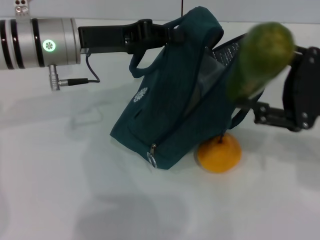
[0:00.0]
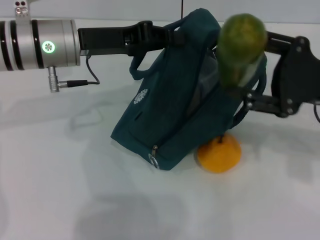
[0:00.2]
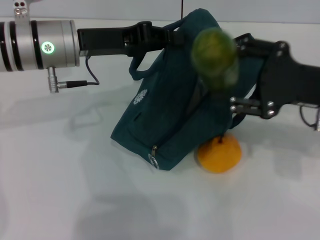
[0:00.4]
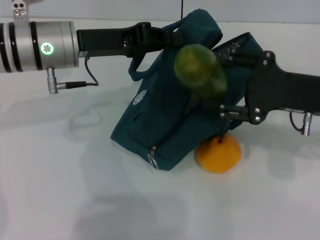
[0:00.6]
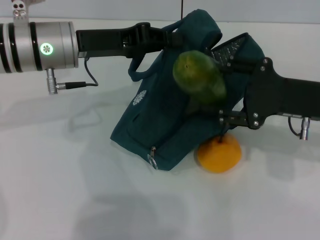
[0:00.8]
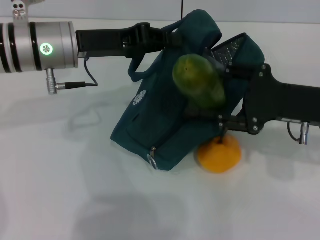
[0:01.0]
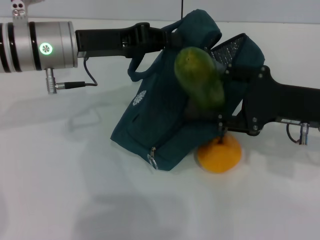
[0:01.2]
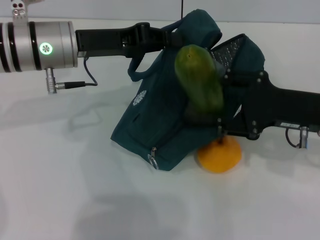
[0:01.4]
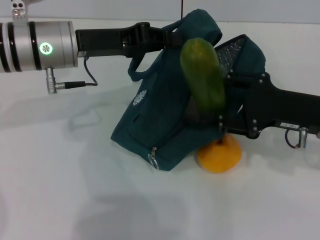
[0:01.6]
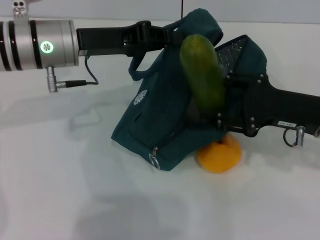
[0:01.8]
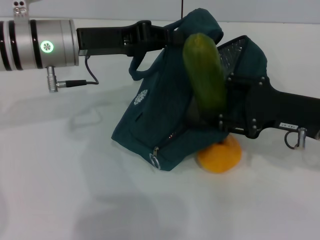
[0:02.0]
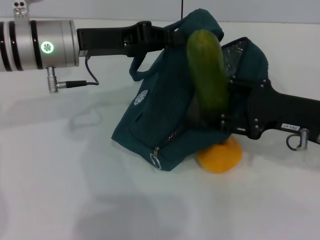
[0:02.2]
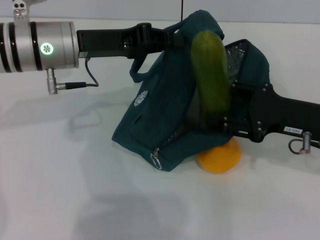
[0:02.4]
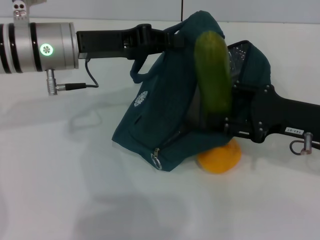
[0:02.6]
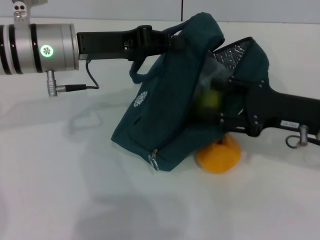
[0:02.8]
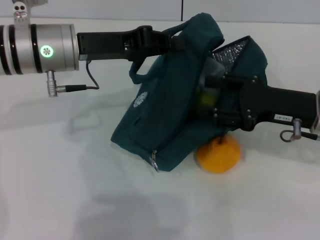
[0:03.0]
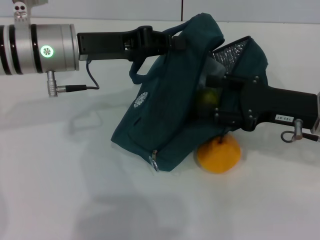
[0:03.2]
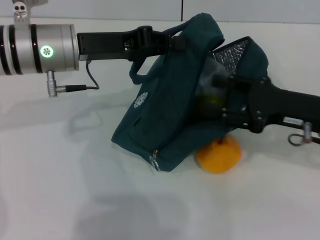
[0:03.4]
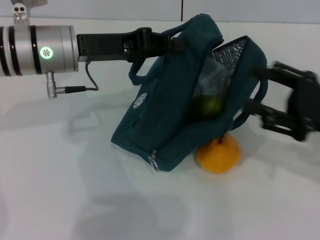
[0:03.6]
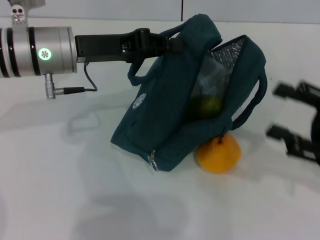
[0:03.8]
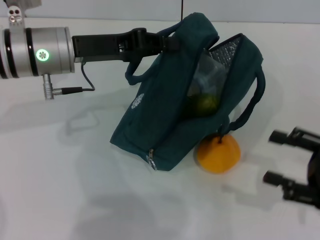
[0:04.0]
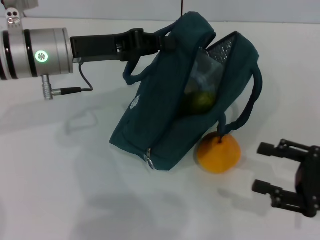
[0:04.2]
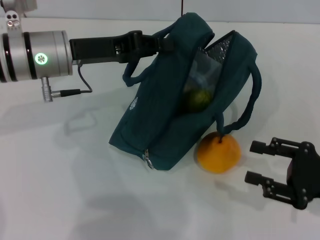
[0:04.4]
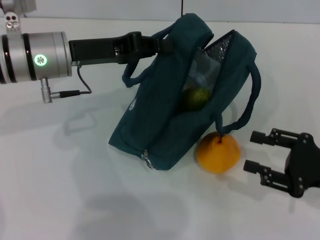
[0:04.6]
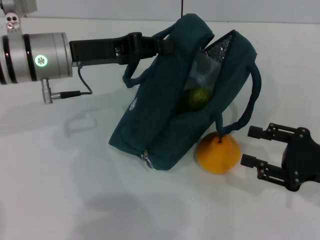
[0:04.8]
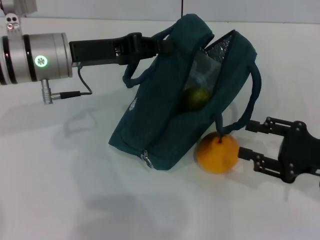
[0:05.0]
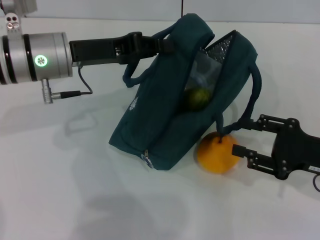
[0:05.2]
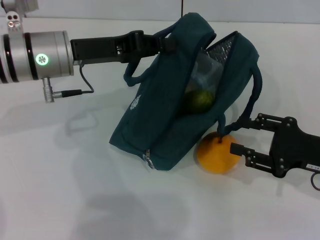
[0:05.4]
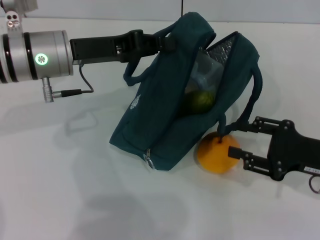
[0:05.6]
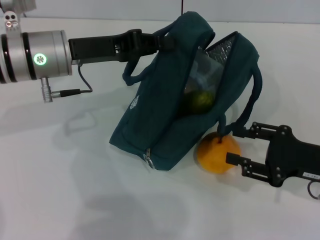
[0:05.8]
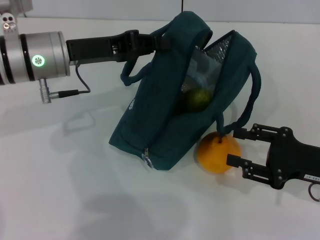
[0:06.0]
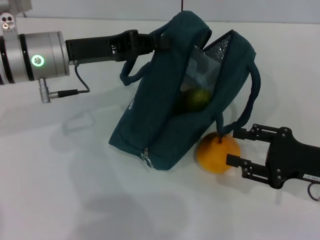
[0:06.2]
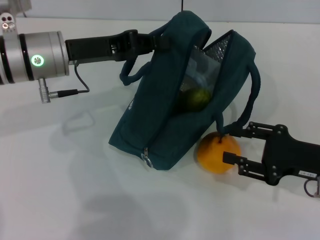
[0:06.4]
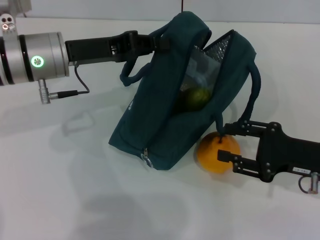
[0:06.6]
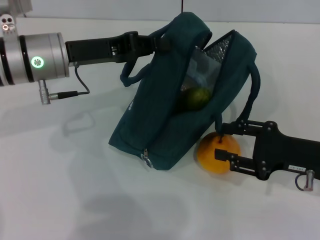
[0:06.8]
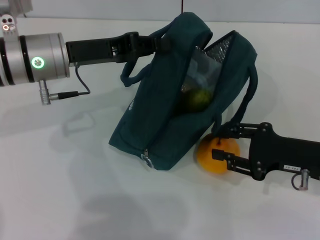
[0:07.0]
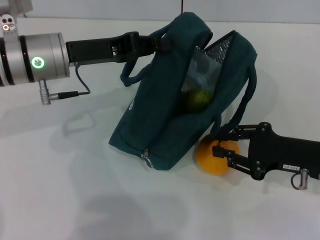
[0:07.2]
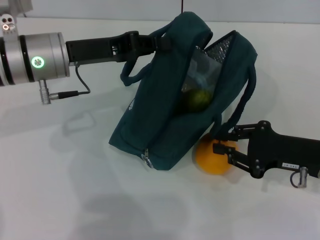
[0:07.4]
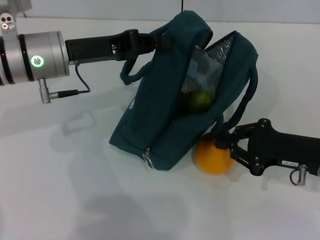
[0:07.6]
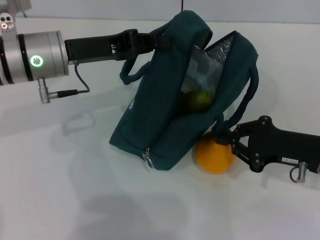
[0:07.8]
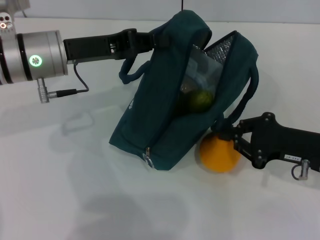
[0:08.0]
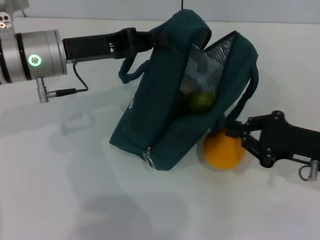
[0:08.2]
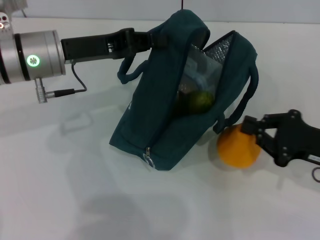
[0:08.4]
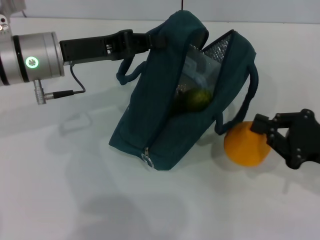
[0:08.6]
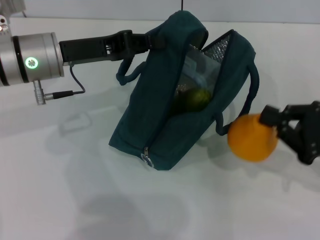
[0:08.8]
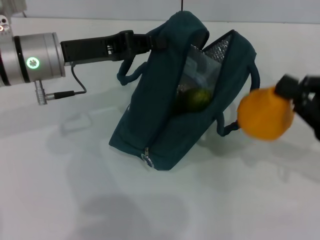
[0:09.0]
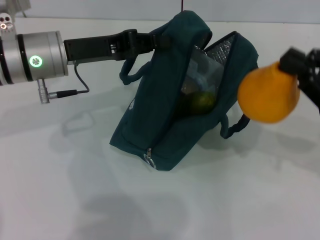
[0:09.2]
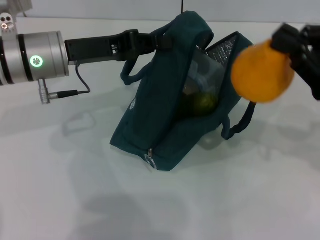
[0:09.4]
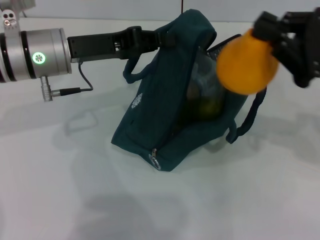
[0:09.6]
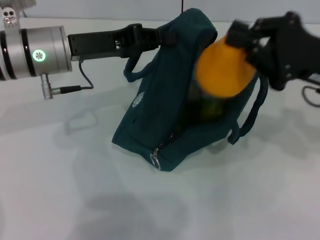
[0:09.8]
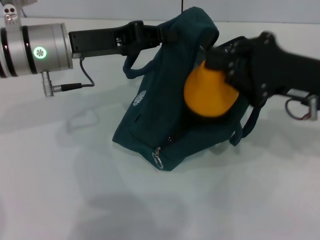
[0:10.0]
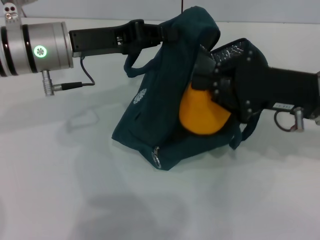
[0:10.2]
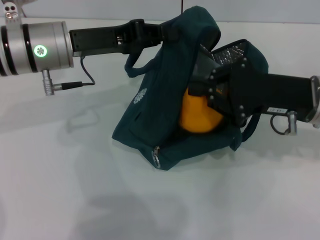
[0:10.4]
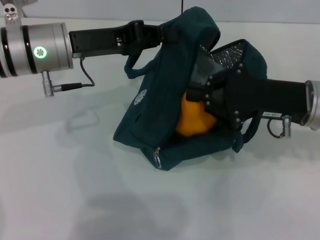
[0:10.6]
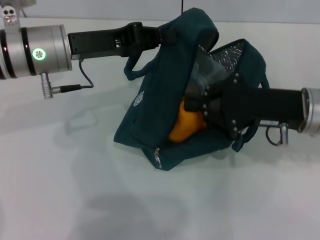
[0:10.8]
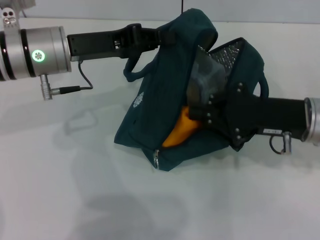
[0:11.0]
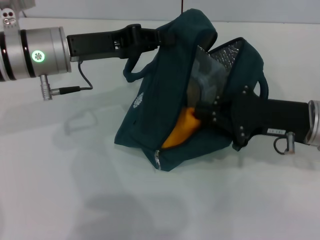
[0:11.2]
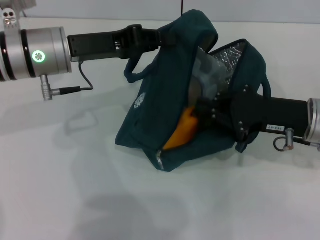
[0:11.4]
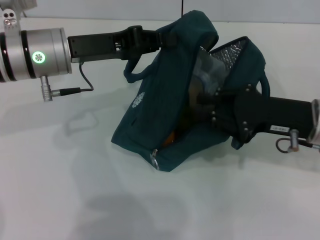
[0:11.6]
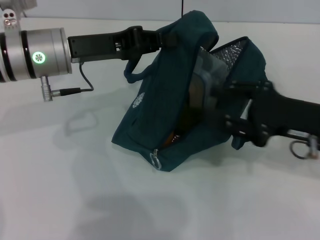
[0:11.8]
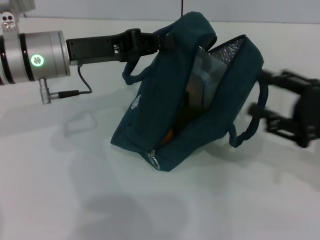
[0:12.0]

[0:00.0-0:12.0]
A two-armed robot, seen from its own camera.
Step, 0:00.0 to 0:03.2: Put the cucumber into the lunch bag with your right hand.
Step, 0:03.4 to 0:07.6: Grab the pear with your right hand.
0:00.0 to 0:01.6: The right gripper ends up roughly 5 cm from where it was.
0:01.6 to 0:03.0: The grippers make only small movements.
0:03.0 to 0:04.4: The right gripper heads backward and to the right, covering about 10 cm.
0:04.4 to 0:06.0: The grippers stay close to where they were, moving slightly.
0:06.0 to 0:07.6: The right gripper closes up.
0:07.6 to 0:09.0: The right gripper travels upward by some 5 cm.
0:09.0 to 0:10.4: The right gripper heads to the left and forward, covering roughly 10 cm.
0:10.4 to 0:12.0: The right gripper moves to the right and backward, approximately 10 cm, and opens its fingers.

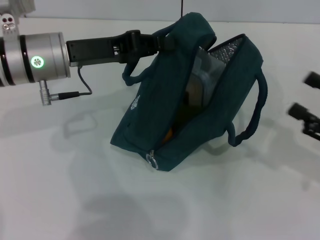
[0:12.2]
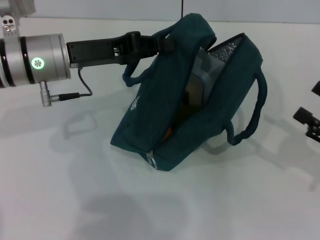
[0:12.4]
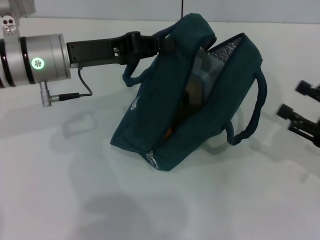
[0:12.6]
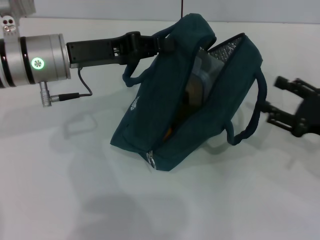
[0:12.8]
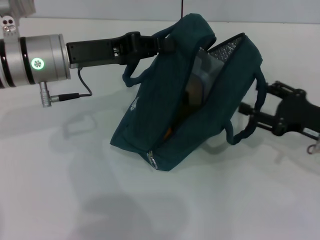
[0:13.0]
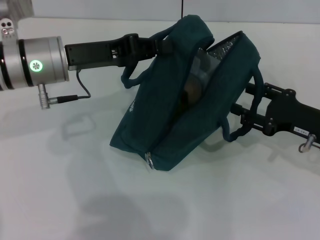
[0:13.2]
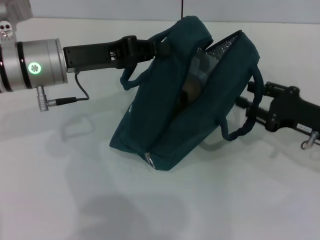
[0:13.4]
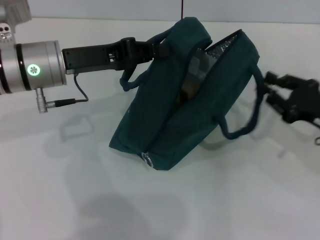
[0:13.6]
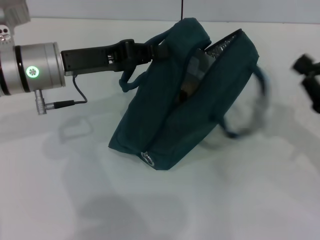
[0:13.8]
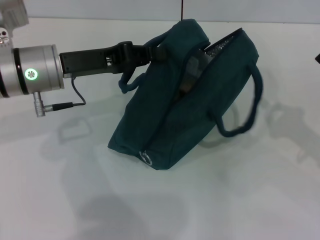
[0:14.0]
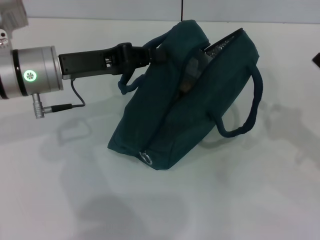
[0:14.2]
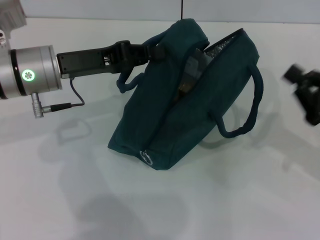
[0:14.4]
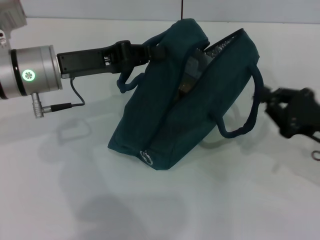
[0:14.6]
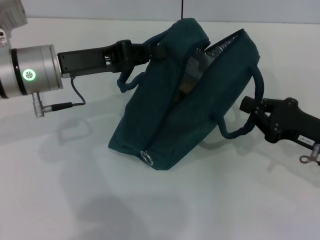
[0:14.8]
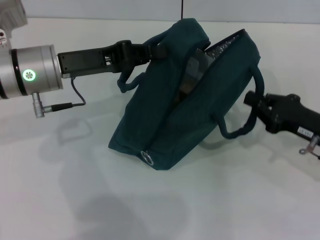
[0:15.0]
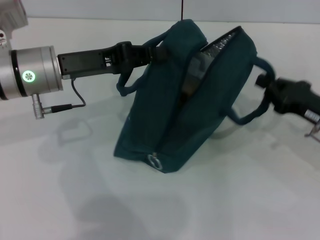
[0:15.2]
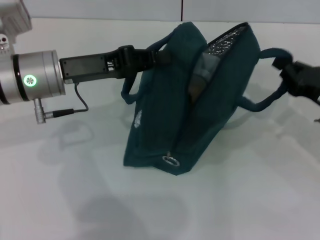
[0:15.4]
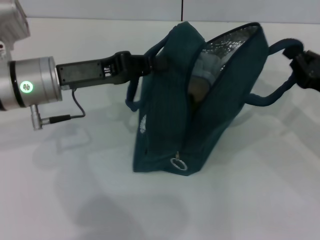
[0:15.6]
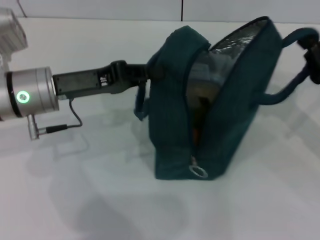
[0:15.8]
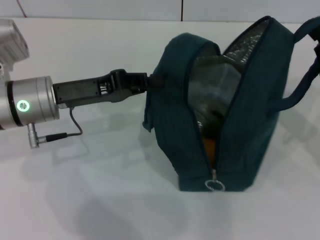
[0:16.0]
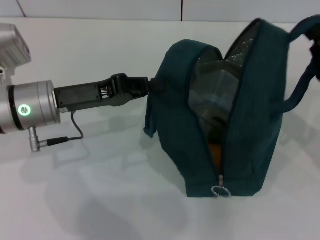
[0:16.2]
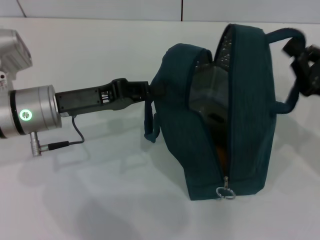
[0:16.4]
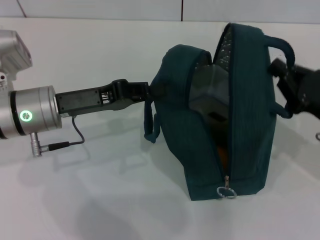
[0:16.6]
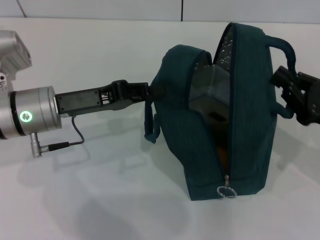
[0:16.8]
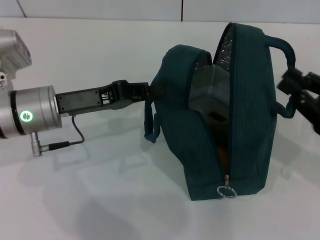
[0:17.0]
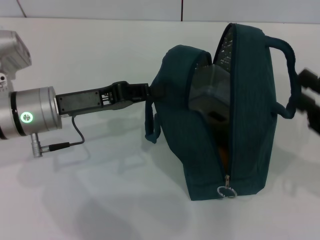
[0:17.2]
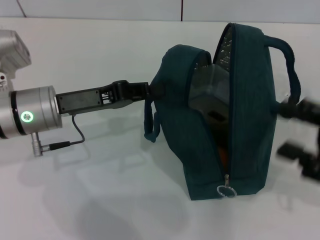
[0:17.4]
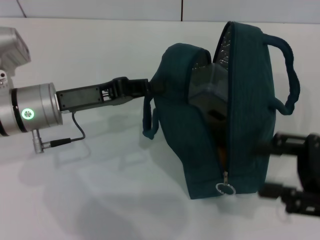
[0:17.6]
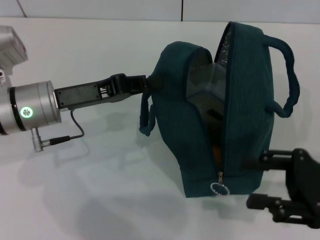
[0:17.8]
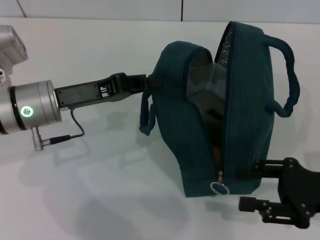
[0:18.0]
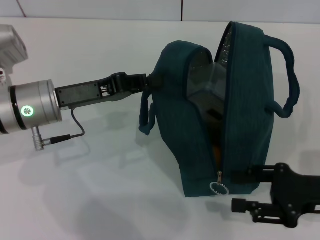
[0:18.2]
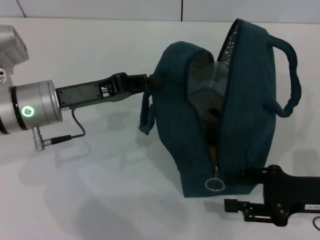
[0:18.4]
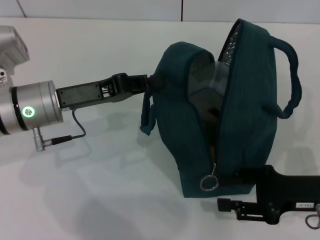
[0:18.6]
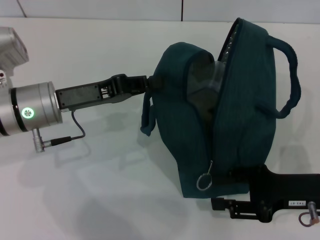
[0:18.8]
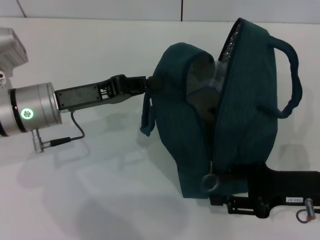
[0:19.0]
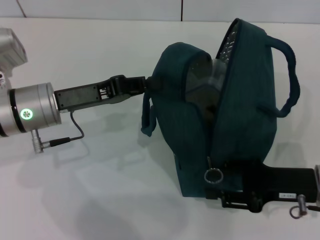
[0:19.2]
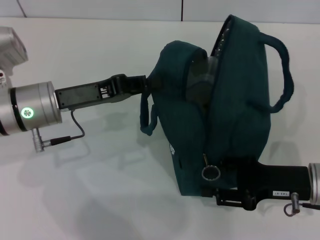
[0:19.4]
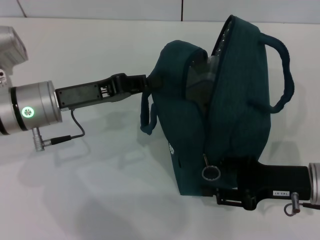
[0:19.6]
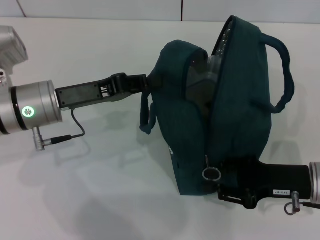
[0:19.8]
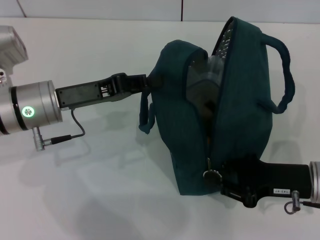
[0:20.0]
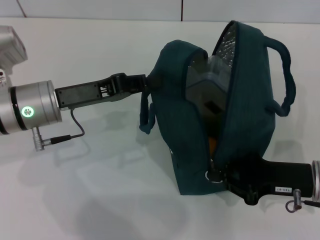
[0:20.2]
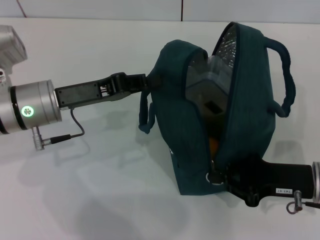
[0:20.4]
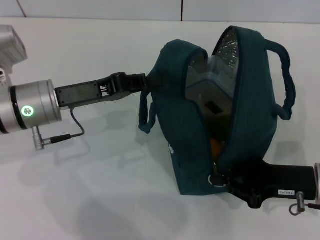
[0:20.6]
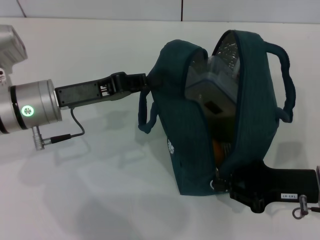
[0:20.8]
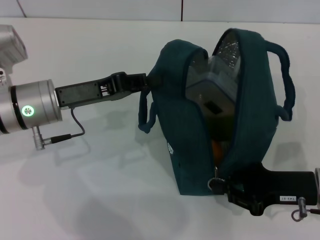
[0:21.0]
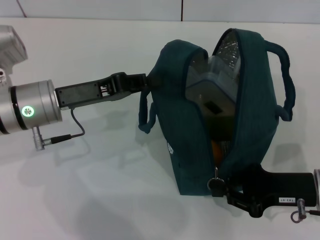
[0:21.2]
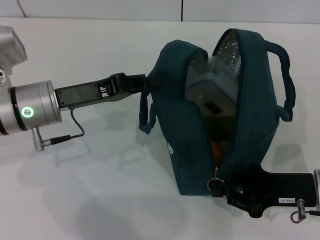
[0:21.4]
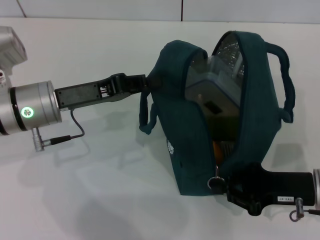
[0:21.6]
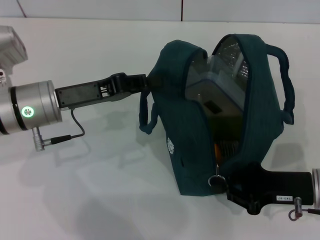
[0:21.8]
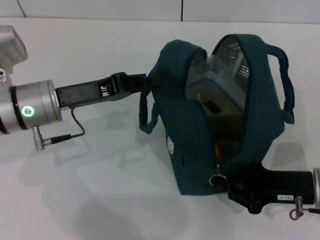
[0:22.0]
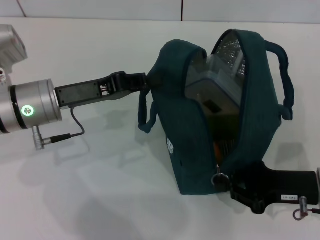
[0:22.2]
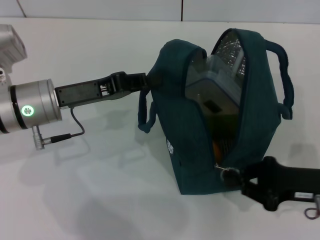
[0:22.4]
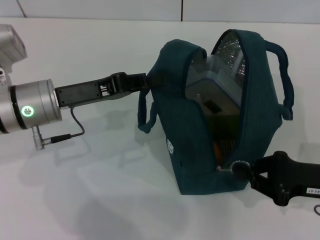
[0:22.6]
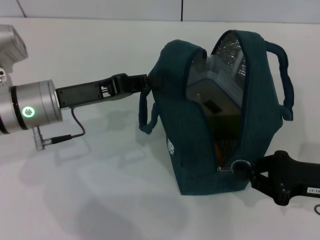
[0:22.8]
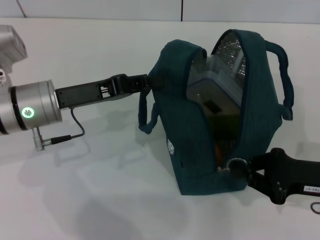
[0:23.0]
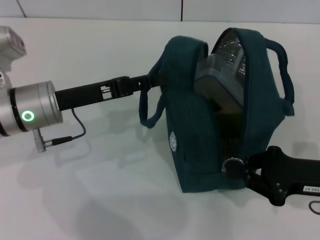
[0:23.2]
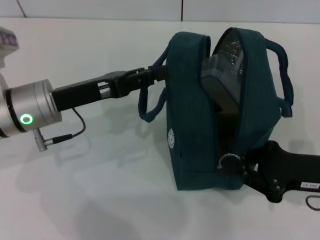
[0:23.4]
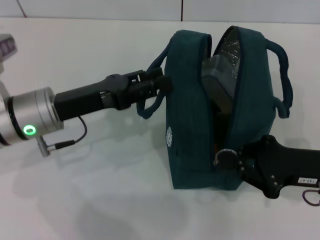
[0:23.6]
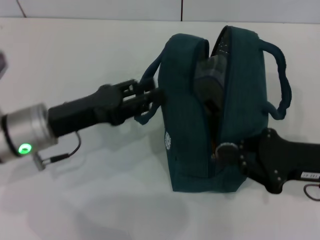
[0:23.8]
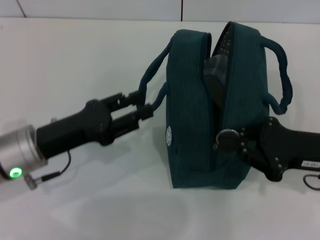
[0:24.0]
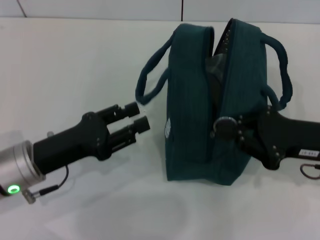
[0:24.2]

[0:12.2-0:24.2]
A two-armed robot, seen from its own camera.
Step, 0:12.2 to 0:16.8: Hold the lunch bag with your right hand.
Step, 0:17.0 to 0:23.6: Hold the lunch bag with your left hand.
0:12.2 to 0:13.8: The right gripper closes up.
0:13.8 to 0:15.2: The right gripper ends up roughly 5 cm from where it was.
0:15.2 to 0:16.6: The left gripper moves about 5 cm.
0:16.6 to 0:18.2: The right gripper opens its fingers.
0:18.2 to 0:19.8: The grippers make only small movements.
0:19.8 to 0:21.2: The right gripper closes up.
0:21.2 to 0:22.6: The grippers stay close to where they were, moving slightly.
0:22.6 to 0:24.2: The left gripper moves backward, approximately 10 cm, and opens; the right gripper moves roughly 5 cm.
